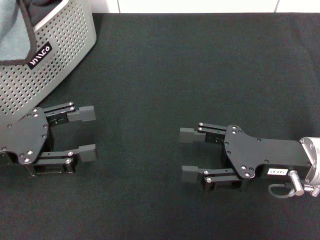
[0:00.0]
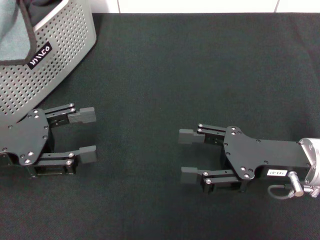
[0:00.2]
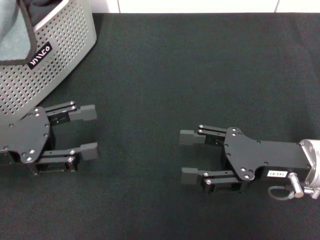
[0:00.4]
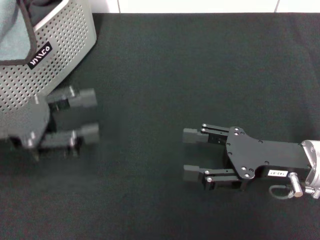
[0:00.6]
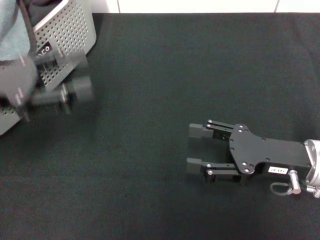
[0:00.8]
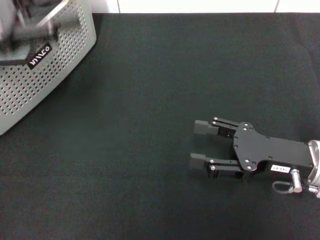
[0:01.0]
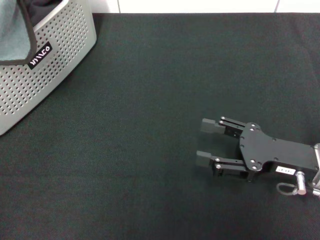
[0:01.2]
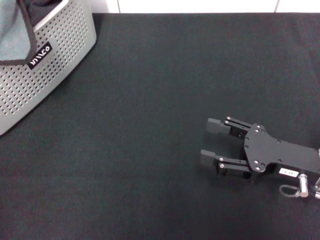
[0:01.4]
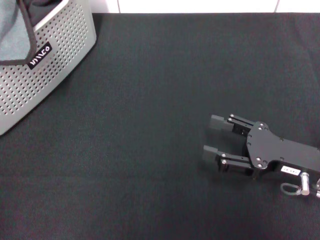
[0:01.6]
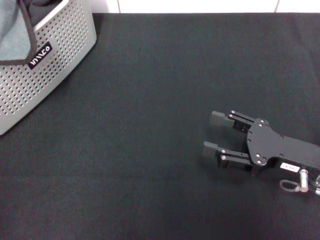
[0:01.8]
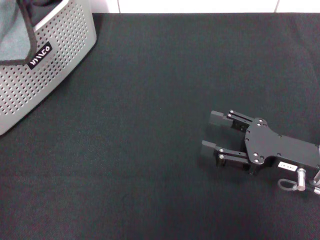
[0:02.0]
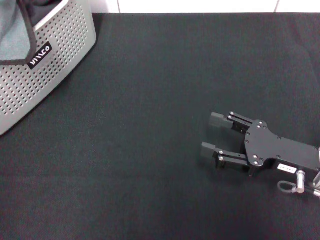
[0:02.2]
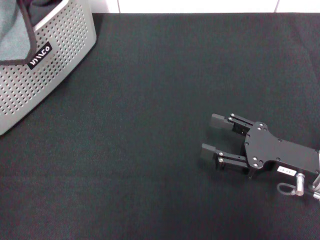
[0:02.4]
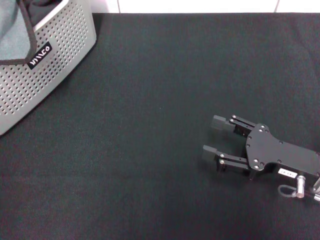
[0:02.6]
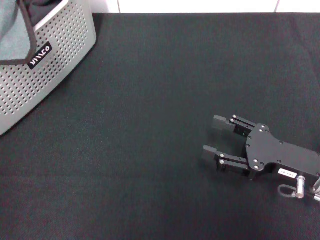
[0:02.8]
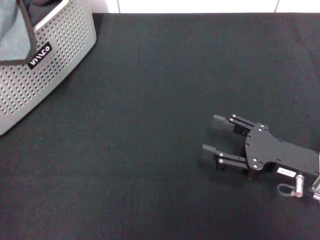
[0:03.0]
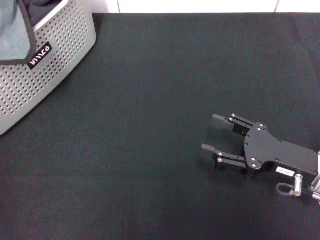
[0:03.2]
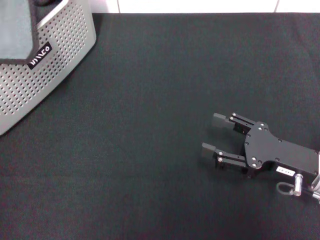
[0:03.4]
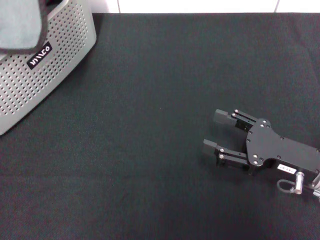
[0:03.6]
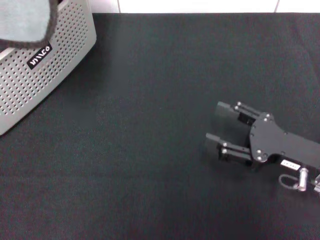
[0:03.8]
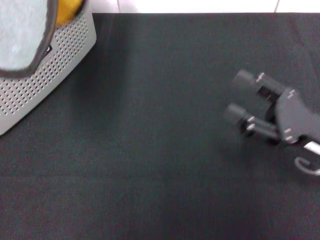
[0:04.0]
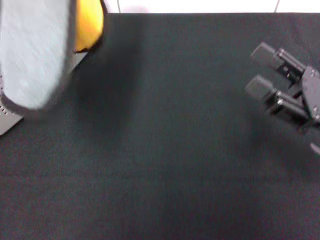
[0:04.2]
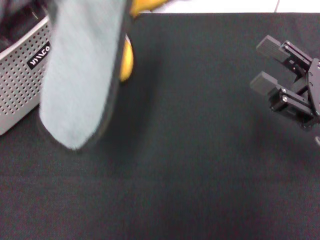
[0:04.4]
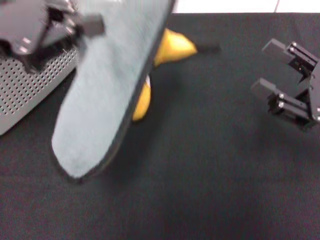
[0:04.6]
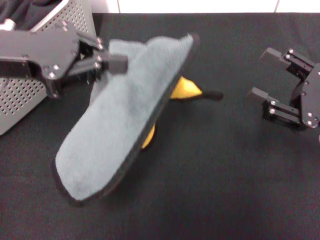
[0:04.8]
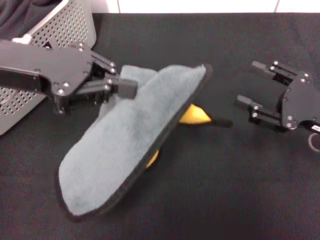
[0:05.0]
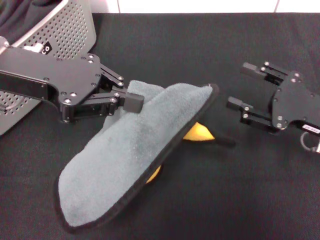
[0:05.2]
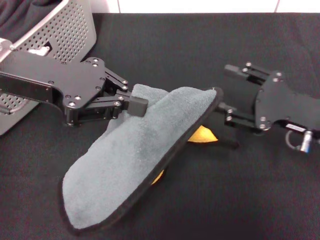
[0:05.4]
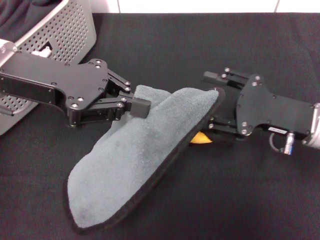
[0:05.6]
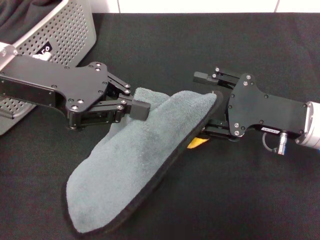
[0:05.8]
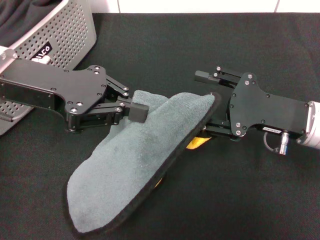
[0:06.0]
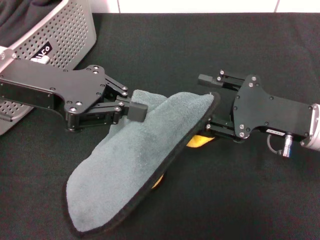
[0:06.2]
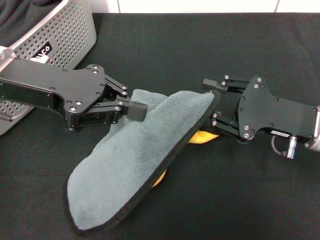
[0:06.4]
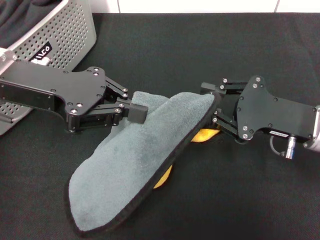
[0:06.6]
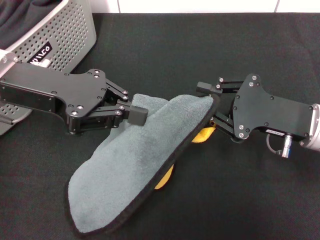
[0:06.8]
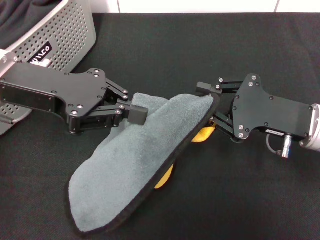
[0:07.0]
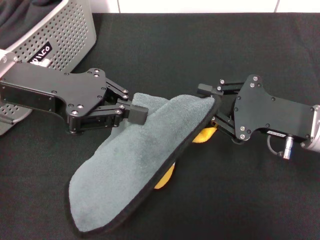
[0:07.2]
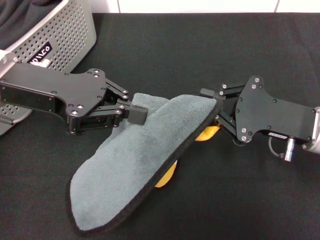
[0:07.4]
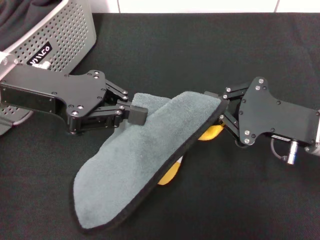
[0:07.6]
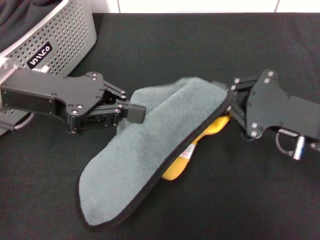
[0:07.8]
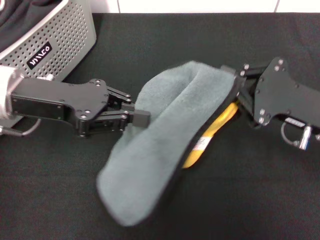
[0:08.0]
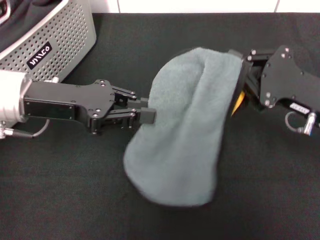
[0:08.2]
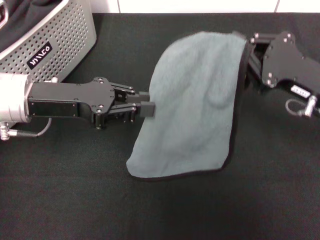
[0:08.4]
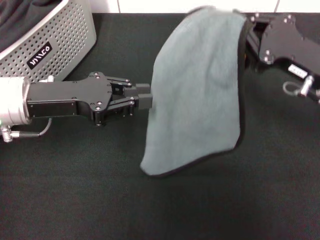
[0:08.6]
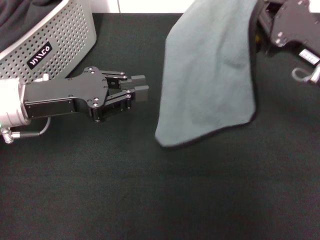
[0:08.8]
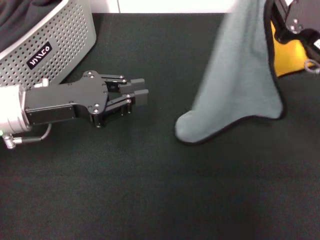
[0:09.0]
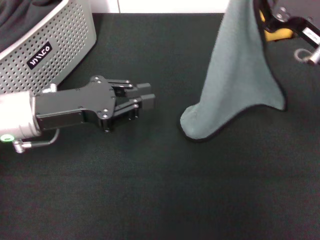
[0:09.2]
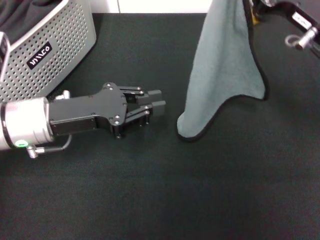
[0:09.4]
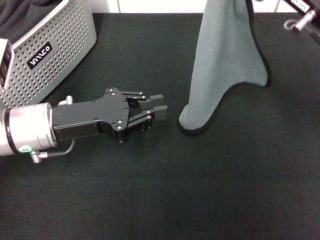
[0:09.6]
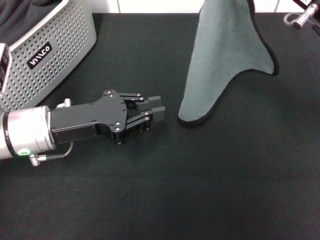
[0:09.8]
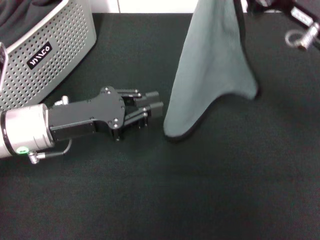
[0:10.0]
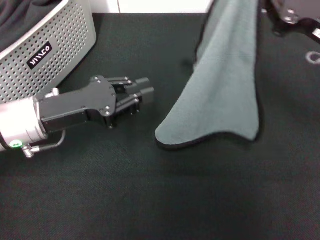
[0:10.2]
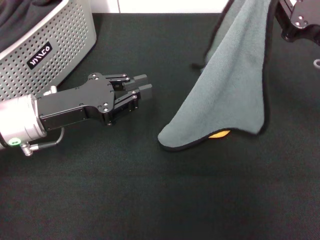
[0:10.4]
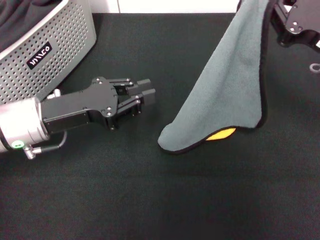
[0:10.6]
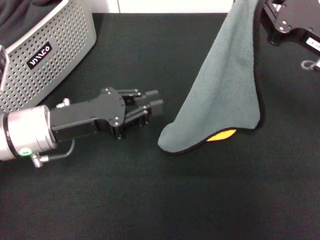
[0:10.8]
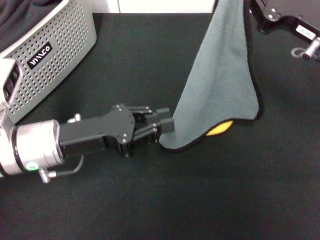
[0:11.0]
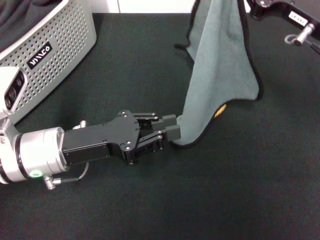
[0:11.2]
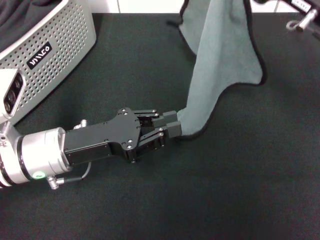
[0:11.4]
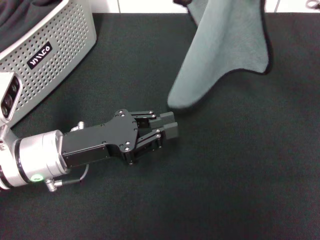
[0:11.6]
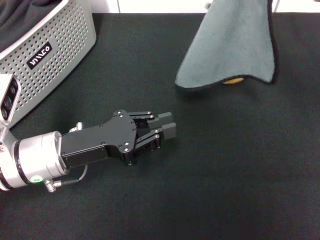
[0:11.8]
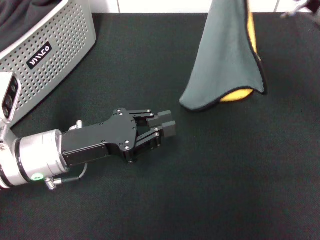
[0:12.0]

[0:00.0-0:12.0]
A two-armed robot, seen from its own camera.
Task of the whole recording: pick up the towel from the storage box and lay it flat on the black tablecloth.
Step, 0:00.0 to 0:03.2: Pick up a towel with the left gripper.
Step, 0:03.4 to 0:07.6: Spread the towel flat with the left gripper.
0:00.0 to 0:01.6: The left gripper moves upward and forward, roughly 15 cm.
0:03.0 to 0:04.4: The right gripper travels upward by roughly 5 cm. Meanwhile the left gripper travels backward and to the right by about 10 cm, and closes.
0:04.4 to 0:06.0: The left gripper heads to the right, covering roughly 5 cm. Meanwhile the right gripper ends up some 5 cm from where it was.
0:06.0 to 0:07.6: The right gripper closes its fingers.
0:07.6 to 0:09.0: The left gripper travels downward by approximately 5 cm; the right gripper moves upward, some 5 cm.
0:10.4 to 0:12.0: The right gripper goes some 5 cm to the left. Meanwhile the left gripper changes place by approximately 5 cm.

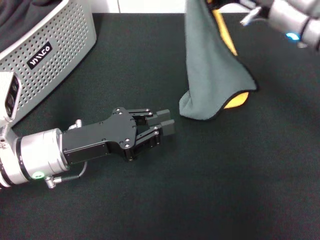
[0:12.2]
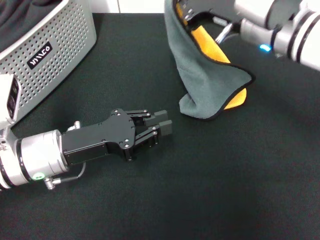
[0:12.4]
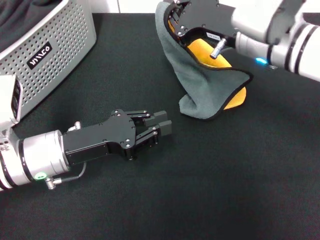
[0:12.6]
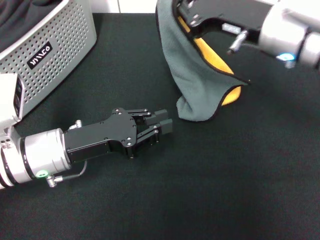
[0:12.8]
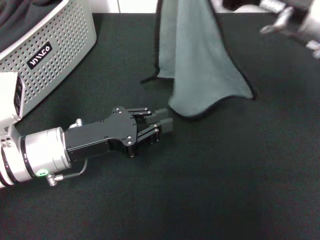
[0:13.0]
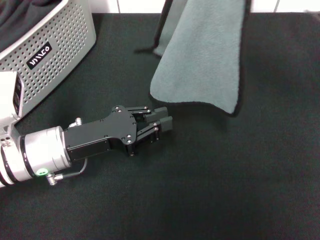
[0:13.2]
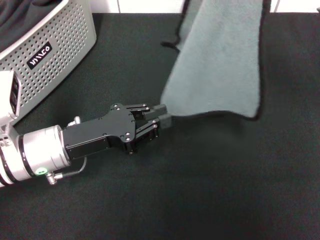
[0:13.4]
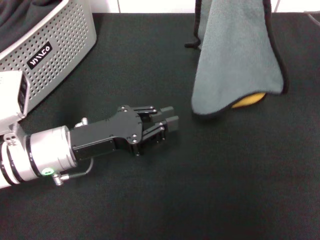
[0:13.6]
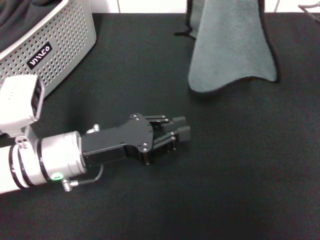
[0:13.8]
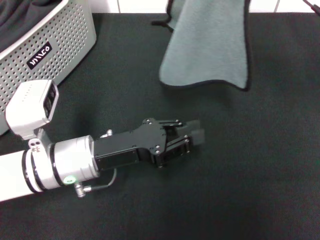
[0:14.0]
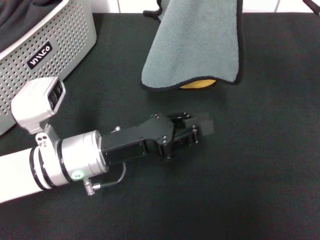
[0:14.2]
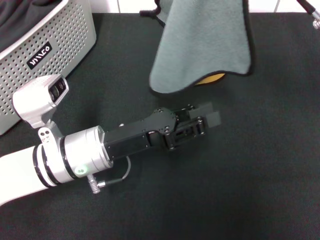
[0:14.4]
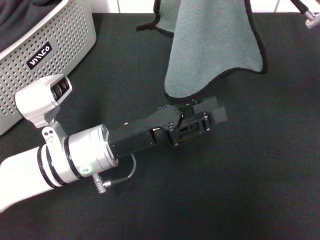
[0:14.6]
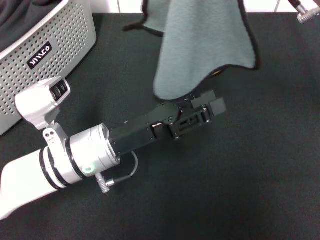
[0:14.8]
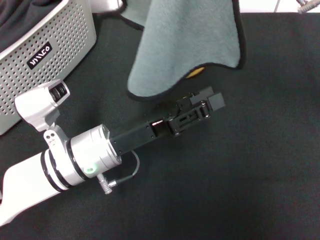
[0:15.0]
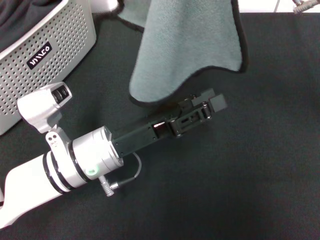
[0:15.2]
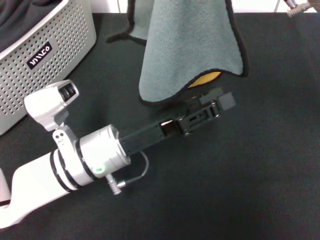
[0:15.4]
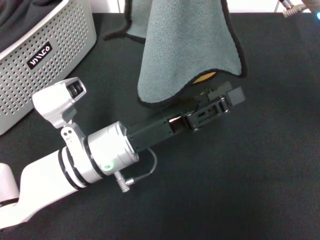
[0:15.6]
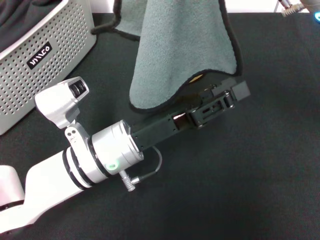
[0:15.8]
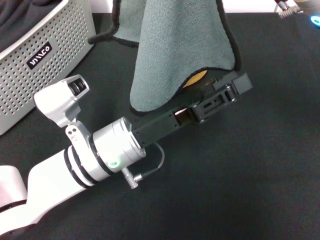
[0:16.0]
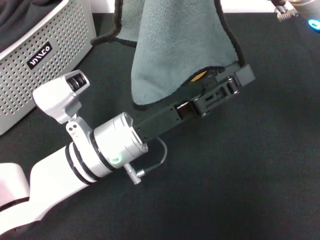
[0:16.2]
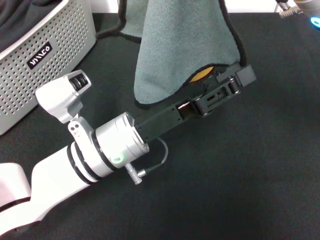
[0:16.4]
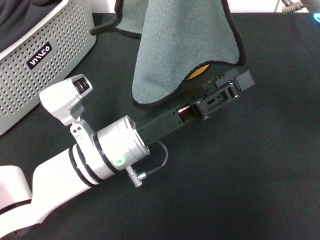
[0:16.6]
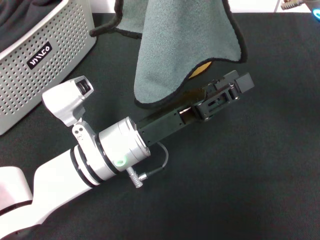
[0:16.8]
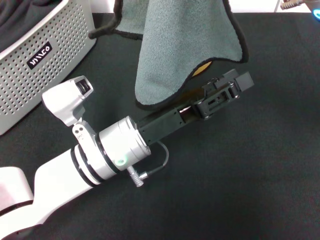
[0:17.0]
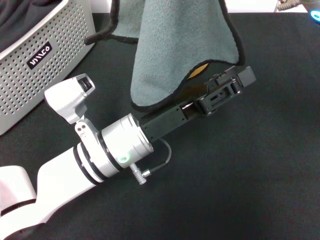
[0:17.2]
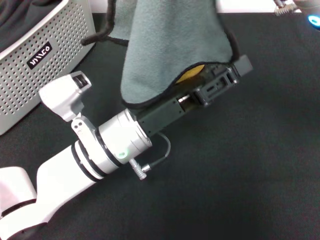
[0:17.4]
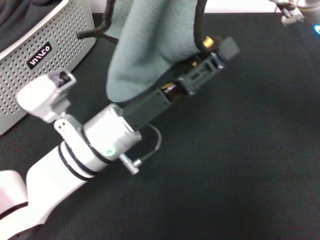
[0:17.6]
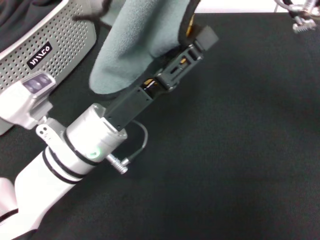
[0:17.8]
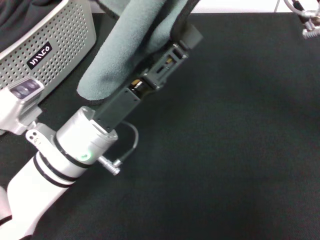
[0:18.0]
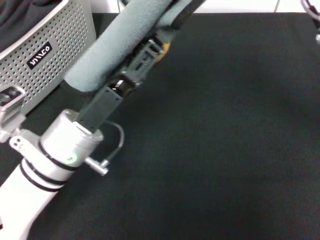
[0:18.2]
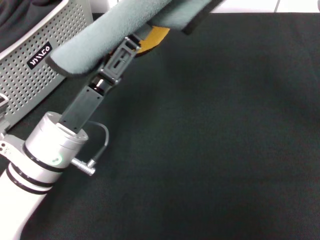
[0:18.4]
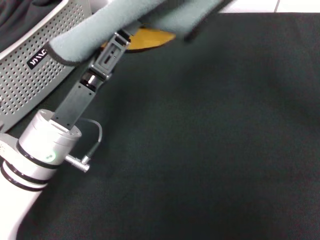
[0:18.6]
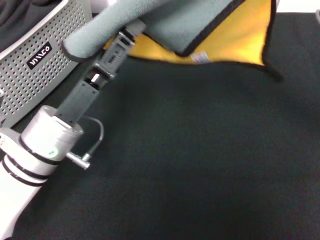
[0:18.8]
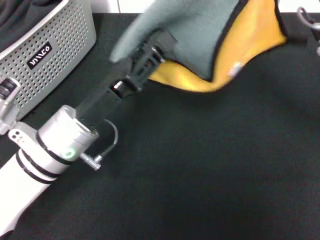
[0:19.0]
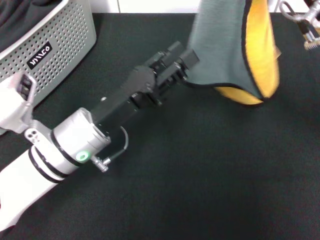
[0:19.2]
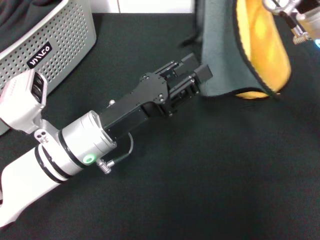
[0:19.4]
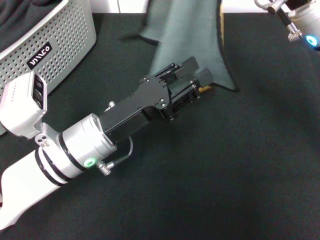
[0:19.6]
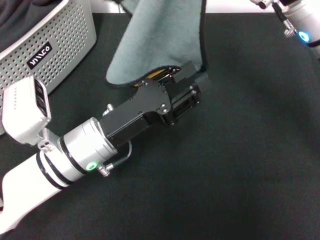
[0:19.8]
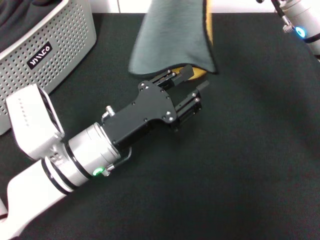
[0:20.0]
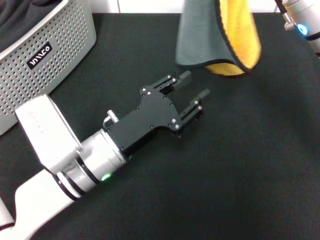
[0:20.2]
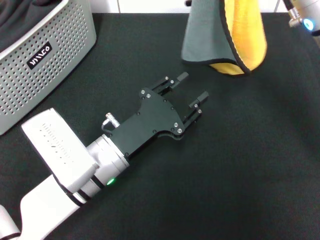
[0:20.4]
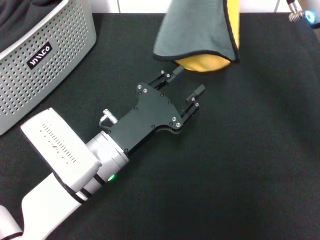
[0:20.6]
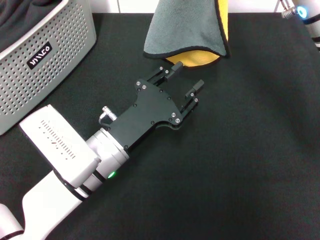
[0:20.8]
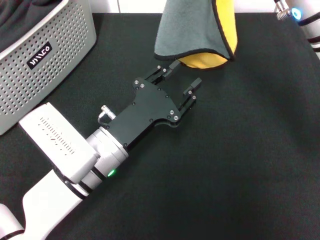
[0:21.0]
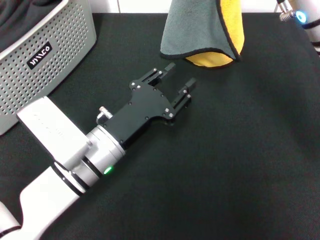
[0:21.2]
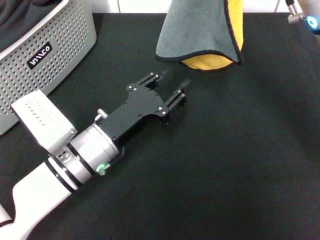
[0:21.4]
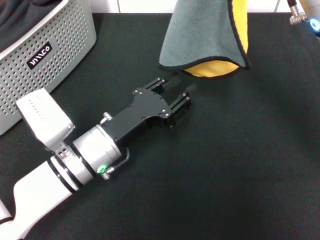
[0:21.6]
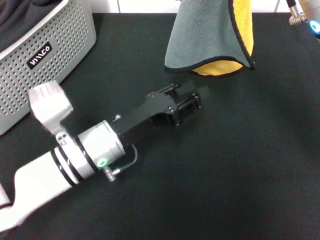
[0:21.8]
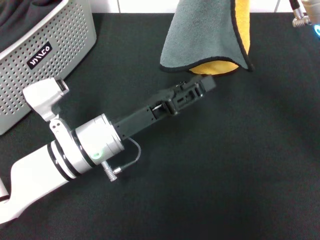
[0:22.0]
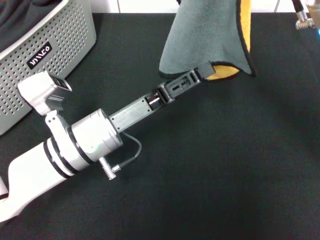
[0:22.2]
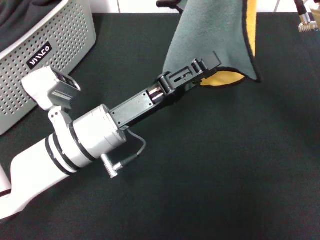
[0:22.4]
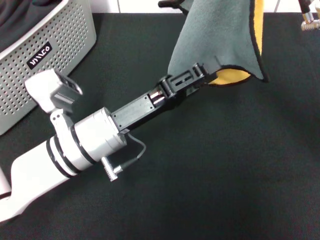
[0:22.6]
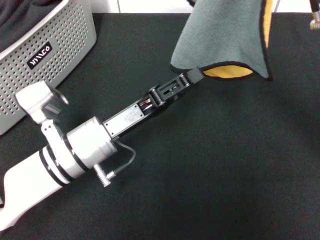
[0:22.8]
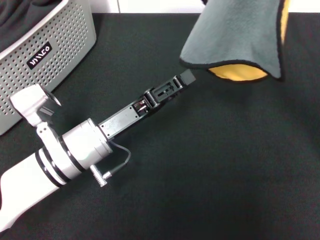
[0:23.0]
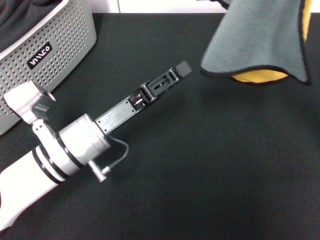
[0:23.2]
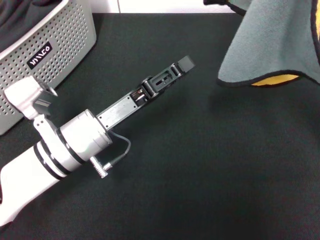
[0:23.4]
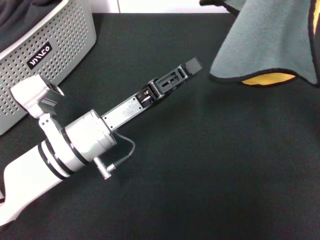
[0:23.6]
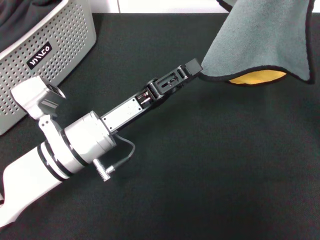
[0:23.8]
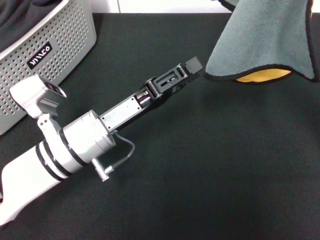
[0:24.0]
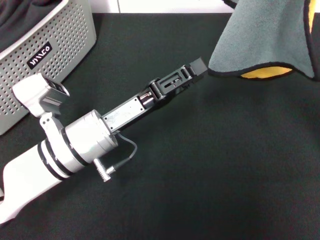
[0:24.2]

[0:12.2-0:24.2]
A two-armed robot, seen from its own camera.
Task of the whole recording: pick up the towel from the storage box and lay it flat on the black tablecloth.
0:12.2 to 0:13.8: The right gripper is displaced to the right by approximately 5 cm.
0:13.8 to 0:15.2: The right gripper is displaced to the left by some 5 cm.
0:15.2 to 0:16.6: The grippers move only a little.
0:16.6 to 0:18.2: The right gripper changes place by roughly 5 cm, while the left gripper changes place by about 5 cm.
